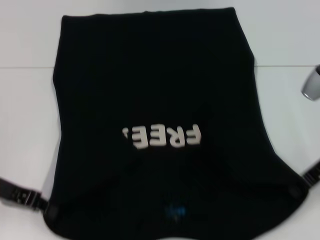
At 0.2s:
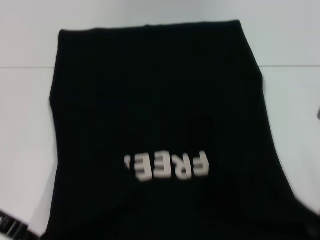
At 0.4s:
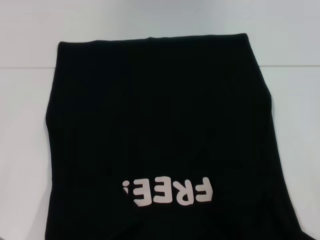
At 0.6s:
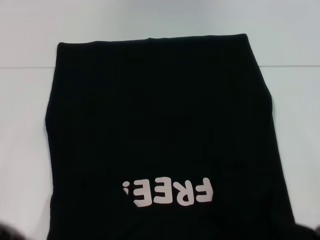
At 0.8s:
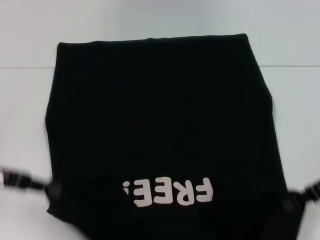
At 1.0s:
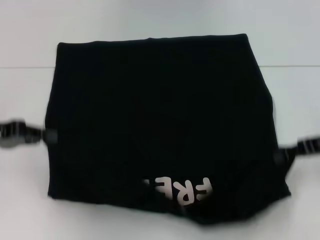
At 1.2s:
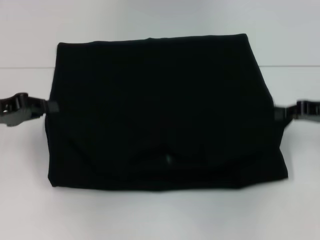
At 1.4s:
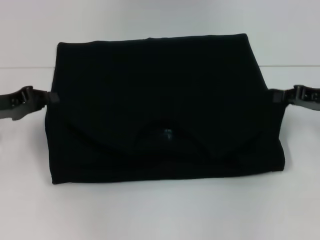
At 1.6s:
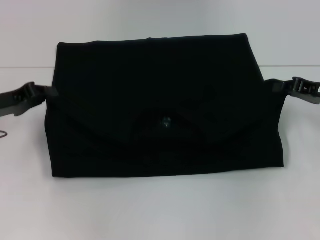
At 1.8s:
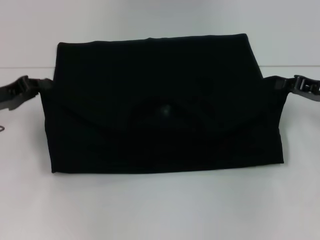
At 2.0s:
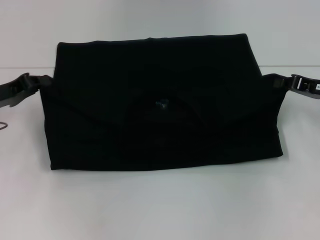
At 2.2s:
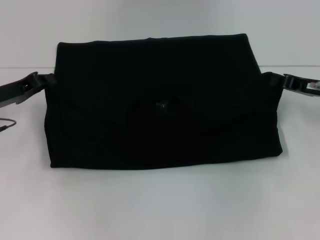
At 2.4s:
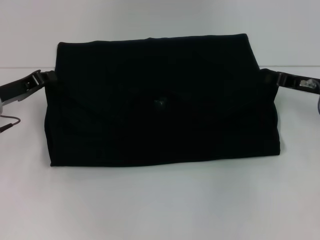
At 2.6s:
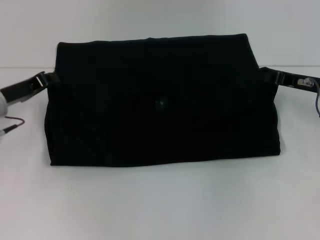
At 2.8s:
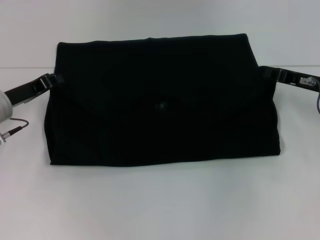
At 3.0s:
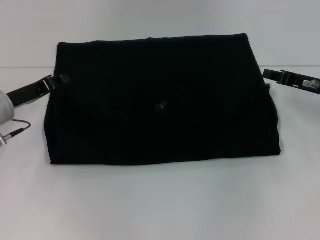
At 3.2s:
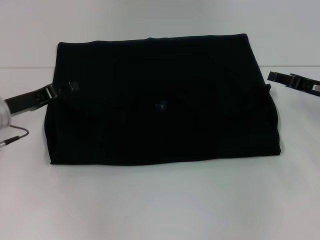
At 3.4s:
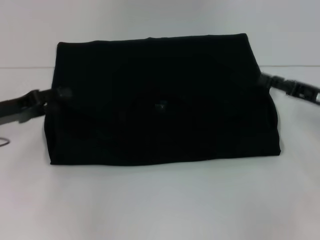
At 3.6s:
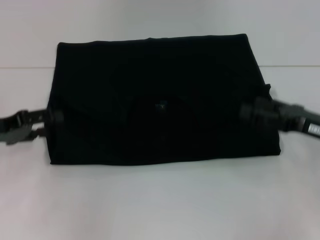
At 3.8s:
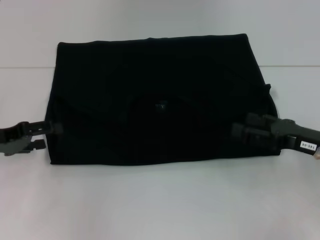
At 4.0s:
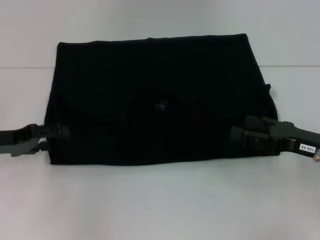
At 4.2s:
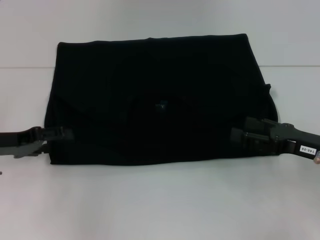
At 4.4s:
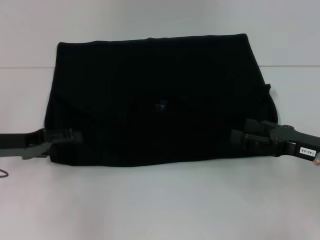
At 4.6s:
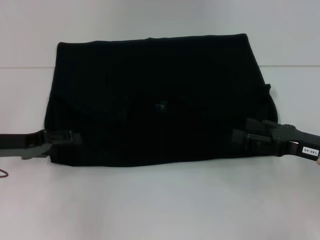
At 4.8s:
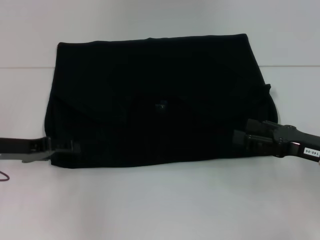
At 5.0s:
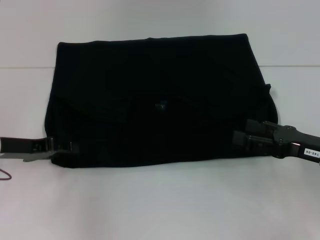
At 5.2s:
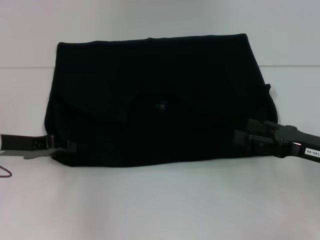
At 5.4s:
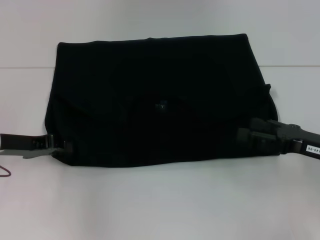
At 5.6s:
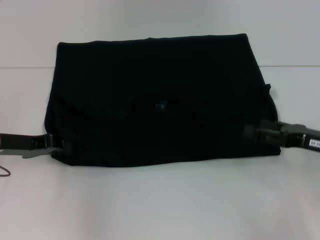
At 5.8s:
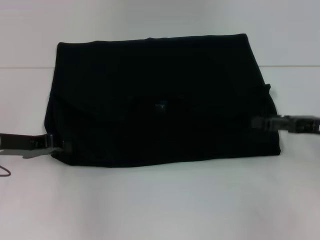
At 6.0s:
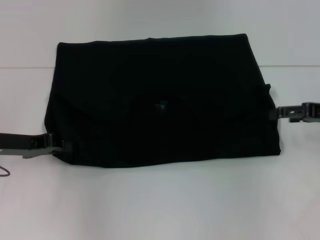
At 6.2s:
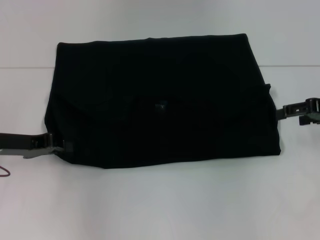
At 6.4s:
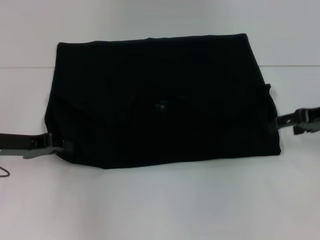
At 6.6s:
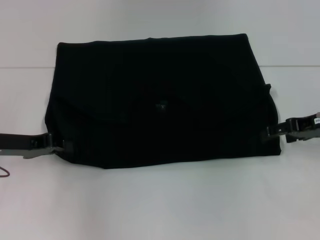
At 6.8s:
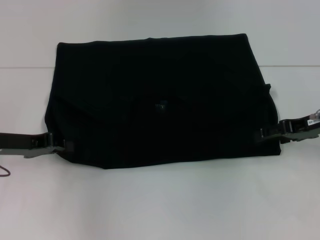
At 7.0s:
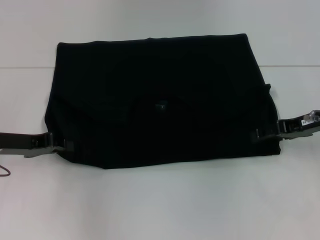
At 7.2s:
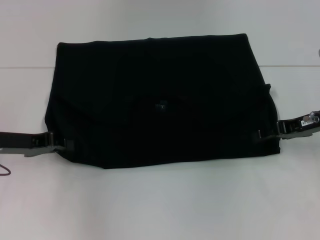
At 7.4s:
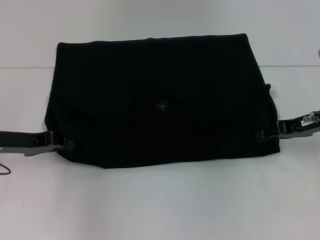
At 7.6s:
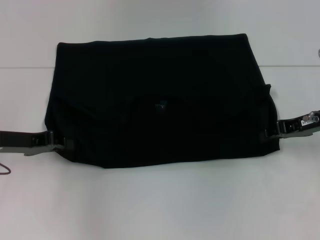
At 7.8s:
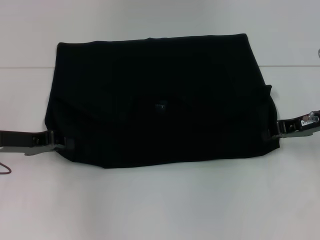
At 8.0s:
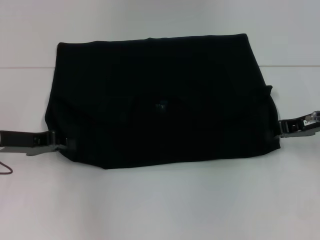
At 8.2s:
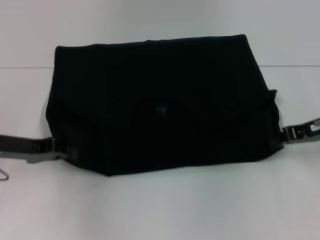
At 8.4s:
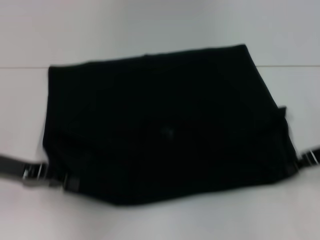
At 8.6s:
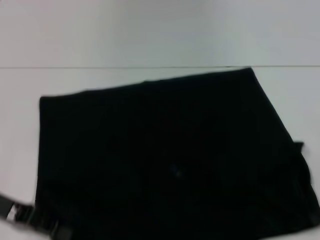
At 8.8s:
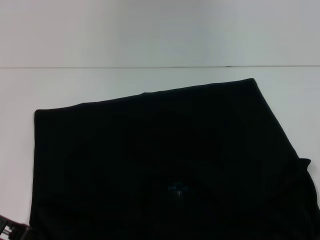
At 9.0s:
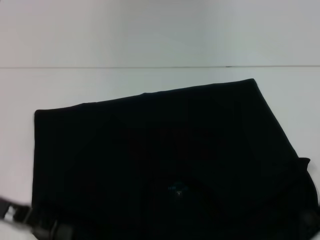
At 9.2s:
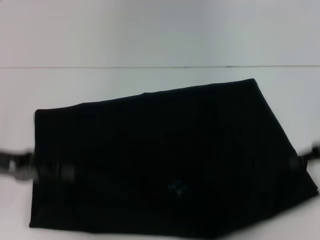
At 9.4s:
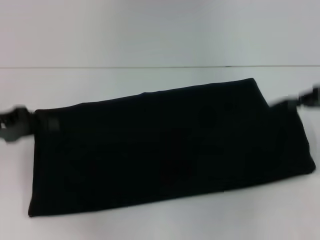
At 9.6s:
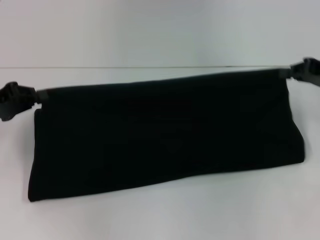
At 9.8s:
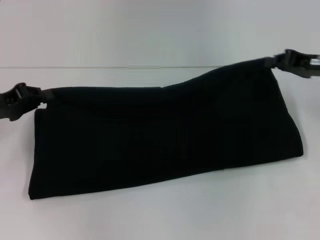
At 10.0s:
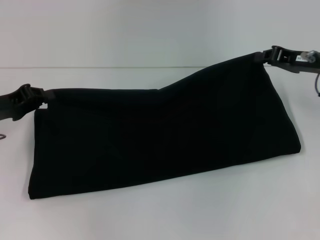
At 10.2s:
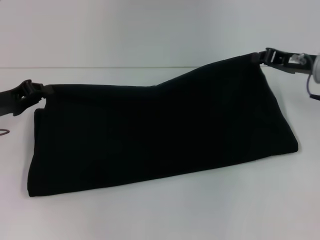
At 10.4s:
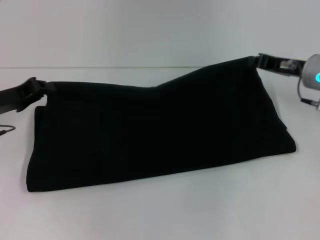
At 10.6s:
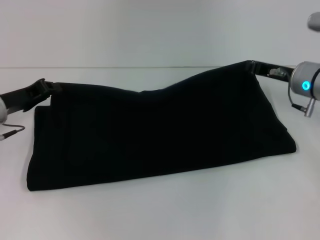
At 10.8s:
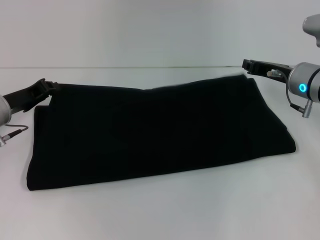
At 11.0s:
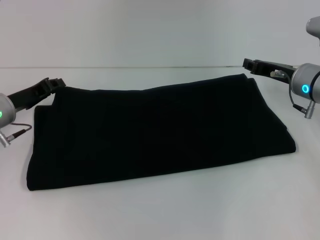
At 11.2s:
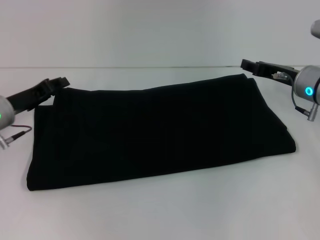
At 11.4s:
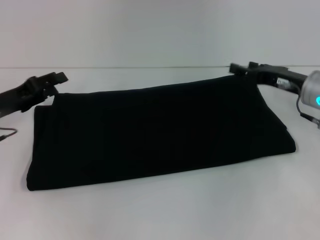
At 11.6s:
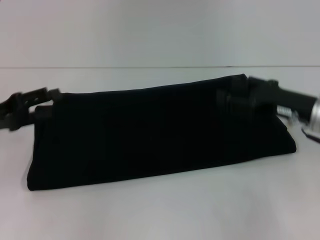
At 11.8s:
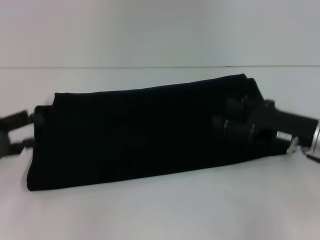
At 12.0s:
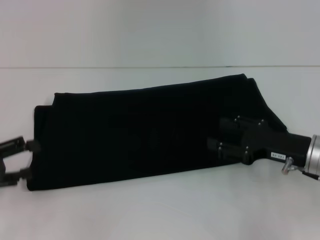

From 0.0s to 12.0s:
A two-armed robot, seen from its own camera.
Step, from 0.0s to 3.0s: Fold the clothes with your left hand.
Step, from 0.0s to 3.0s: Fold the clothes with your right hand.
Step, from 3.2s to 8.6s: Pull the clothes with your left hand.
Step, from 3.2s to 8.6s: Pull the clothes with your right hand.
Step, from 8.8s to 11.4s: Fold the clothes with your right hand.
From 0.0s to 1.6s: The right gripper changes place by roughly 5 cm. Meanwhile the left gripper shifts by roughly 5 cm.
From 1.6s to 3.0s: The grippers move only a little.
From 3.0s to 4.4s: The right gripper moves backward, roughly 10 cm, and opens. Meanwhile the left gripper changes place by roughly 5 cm, and opens its fingers.
From 4.4s to 6.0s: The right gripper is displaced upward and forward by roughly 10 cm. The left gripper closes.
From 6.0s to 7.6s: The right gripper ends up some 5 cm from where it was, and closes its fingers.
From 7.6s to 9.0s: Both grippers travel together backward, some 5 cm. The right gripper closes its fingers.
From 9.0s to 10.4s: The right gripper goes some 15 cm forward and to the left. Meanwhile the left gripper heads forward, covering roughly 10 cm.
From 10.4s to 12.0s: The right gripper travels backward and downward by some 15 cm, and opens up, while the left gripper heads backward and to the left, covering approximately 10 cm, and opens its fingers.

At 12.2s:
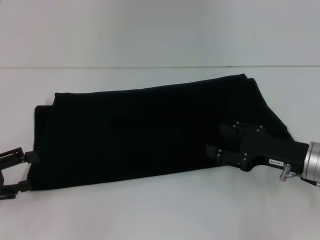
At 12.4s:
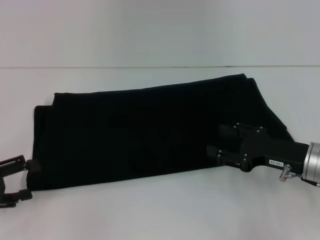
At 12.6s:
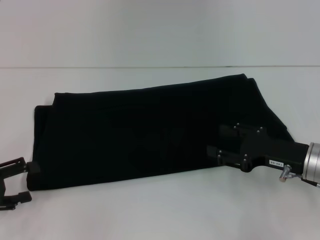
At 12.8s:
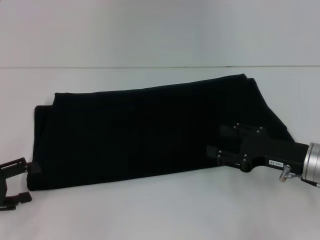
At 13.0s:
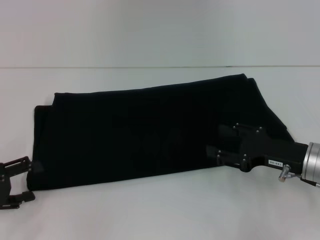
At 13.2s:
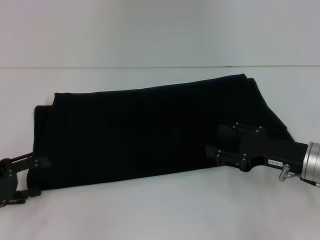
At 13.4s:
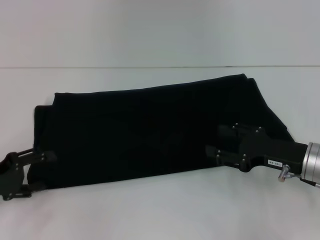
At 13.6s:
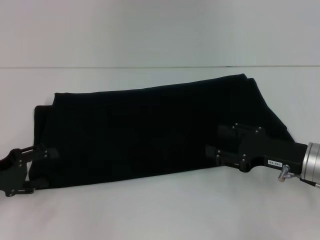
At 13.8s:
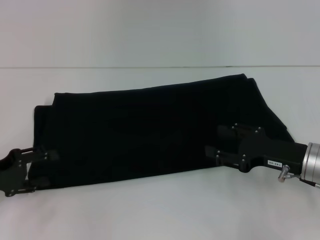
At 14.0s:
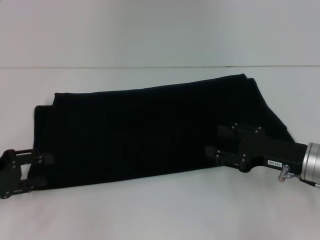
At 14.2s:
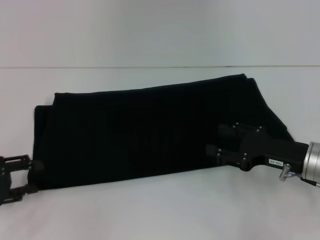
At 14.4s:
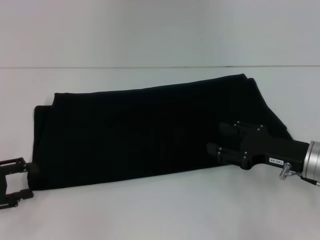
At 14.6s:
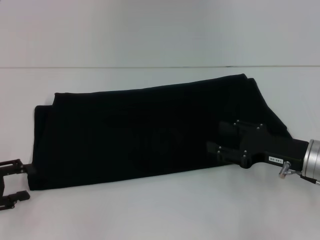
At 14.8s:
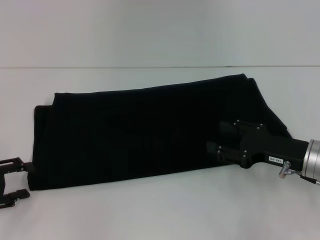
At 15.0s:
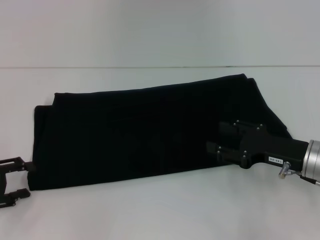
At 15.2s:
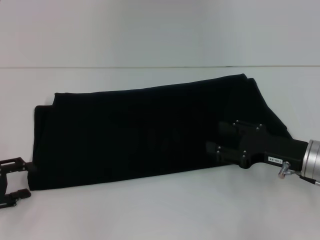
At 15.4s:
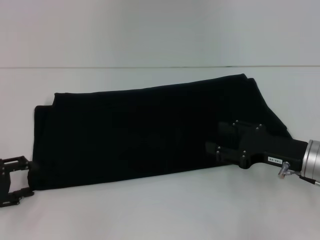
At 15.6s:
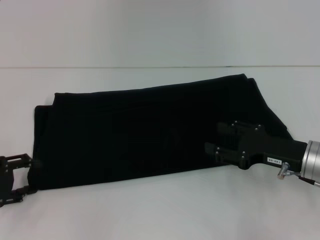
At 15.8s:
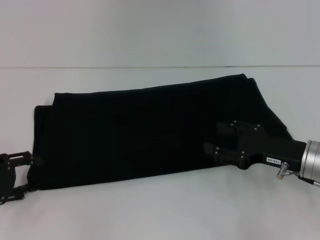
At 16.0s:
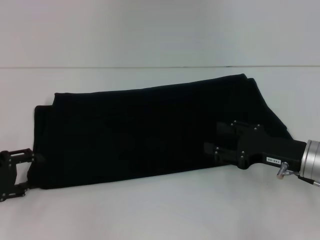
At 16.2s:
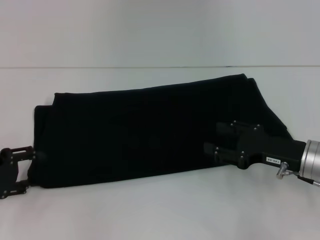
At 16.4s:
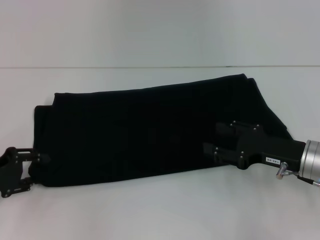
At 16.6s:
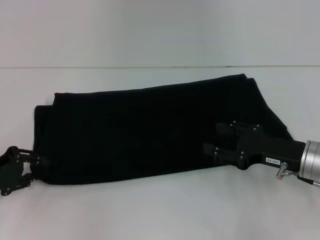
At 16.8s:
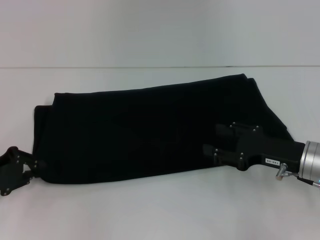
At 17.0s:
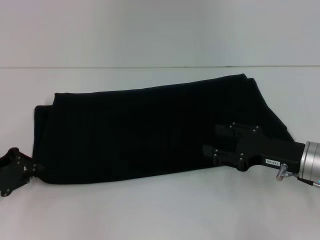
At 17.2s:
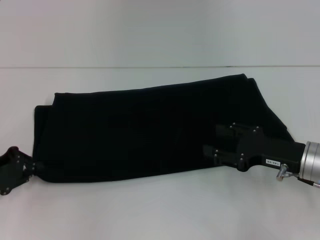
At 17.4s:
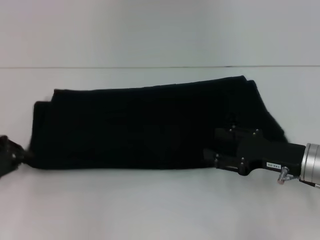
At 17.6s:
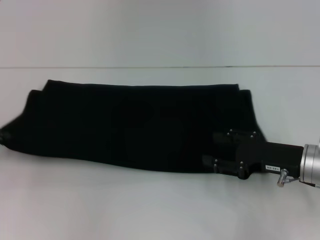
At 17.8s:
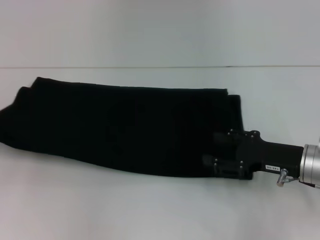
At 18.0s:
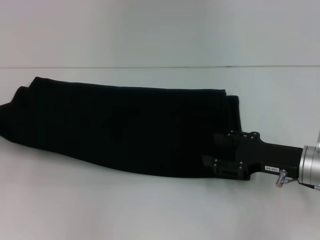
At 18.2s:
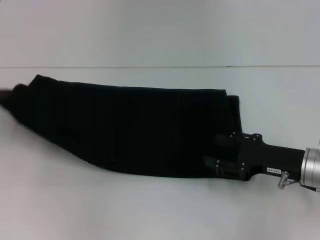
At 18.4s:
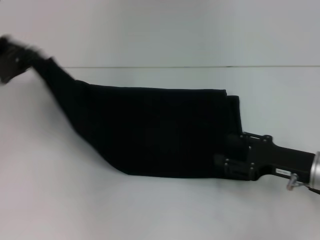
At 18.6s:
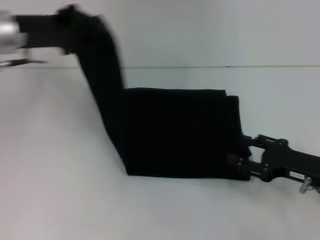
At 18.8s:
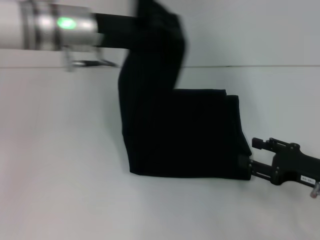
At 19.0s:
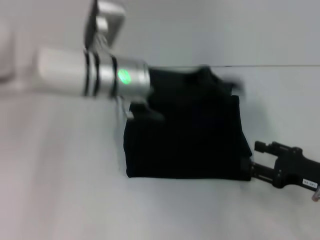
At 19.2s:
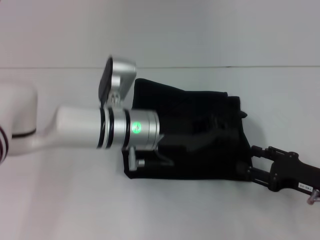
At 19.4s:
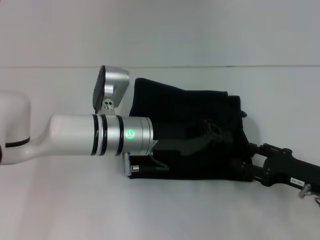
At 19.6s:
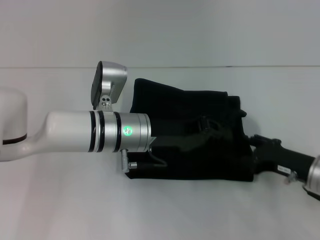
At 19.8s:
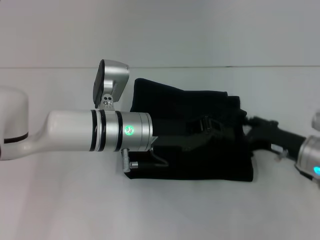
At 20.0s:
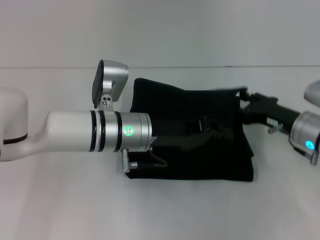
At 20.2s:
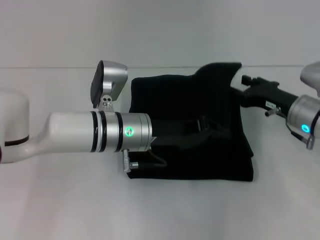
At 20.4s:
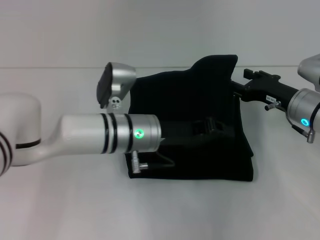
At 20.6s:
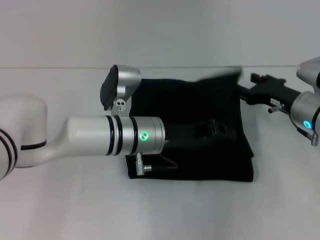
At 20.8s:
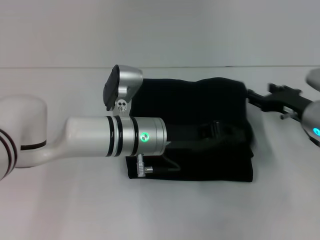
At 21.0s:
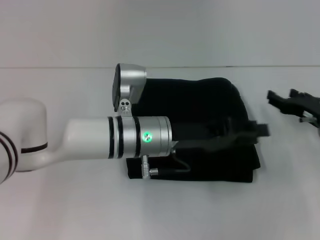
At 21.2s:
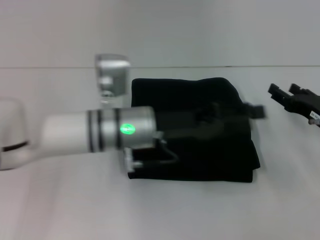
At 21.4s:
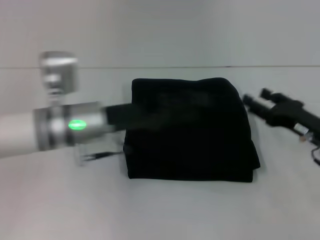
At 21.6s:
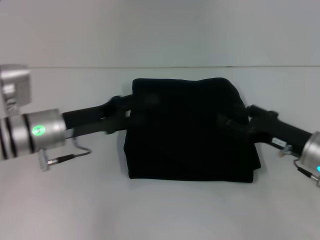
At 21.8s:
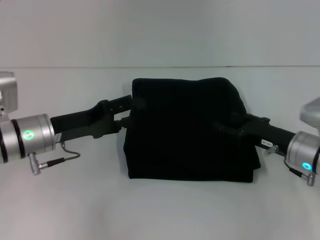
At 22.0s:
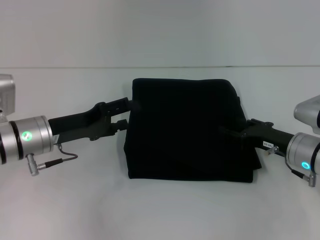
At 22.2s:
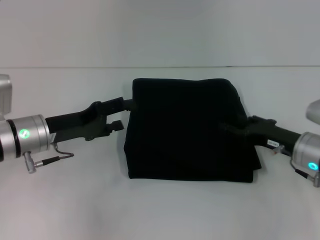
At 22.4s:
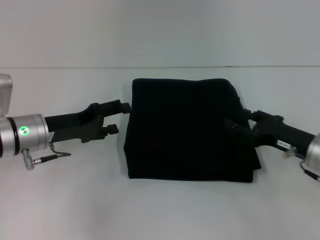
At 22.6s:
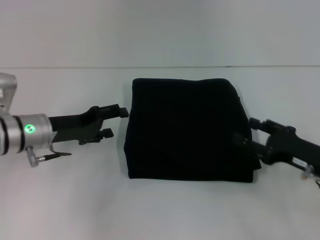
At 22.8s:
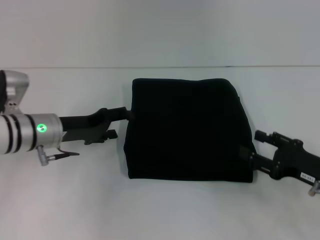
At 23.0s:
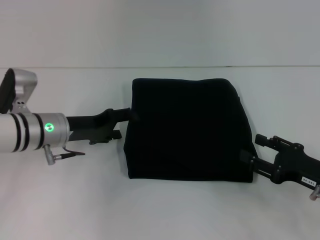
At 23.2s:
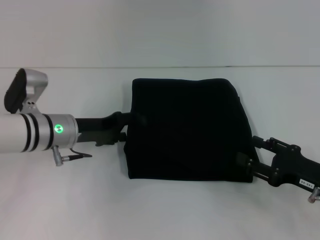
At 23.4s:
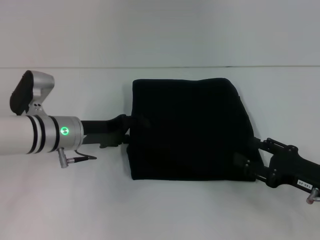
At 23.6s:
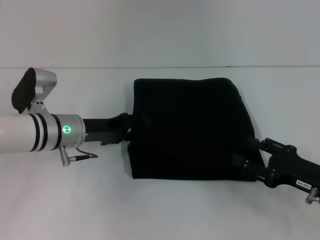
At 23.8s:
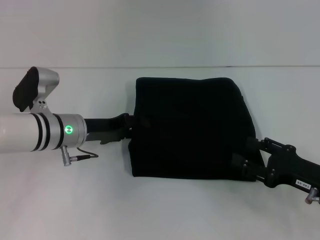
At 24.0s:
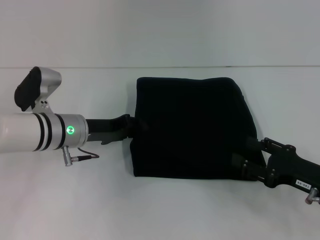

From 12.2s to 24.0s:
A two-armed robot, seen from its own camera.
Step, from 12.2s to 21.2s: Fold the clothes with your left hand.
From 12.2s to 15.2s: There are only small adjustments of the grippers.
From 15.2s to 16.6s: There are only small adjustments of the grippers.
From 16.6s to 18.2s: The left gripper heads upward, covering approximately 5 cm, and closes its fingers.
From 18.2s to 19.6s: The left gripper shifts roughly 30 cm to the right.
From 19.6s to 21.0s: The right gripper is displaced forward by roughly 5 cm.
From 21.0s to 22.6s: The right gripper heads backward, covering roughly 10 cm. The left gripper heads to the left, covering roughly 20 cm, and opens up.
From 22.6s to 24.0s: The left gripper travels to the right by some 5 cm.
